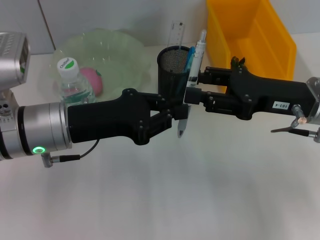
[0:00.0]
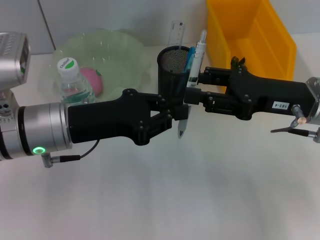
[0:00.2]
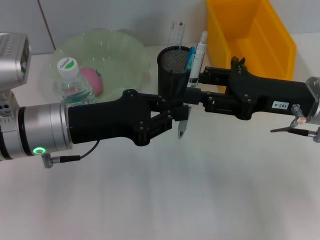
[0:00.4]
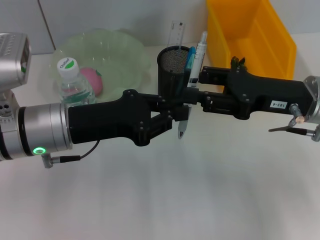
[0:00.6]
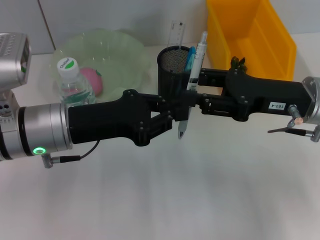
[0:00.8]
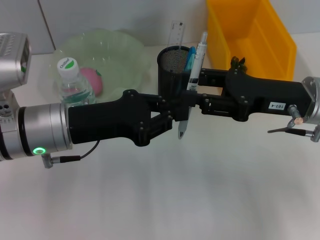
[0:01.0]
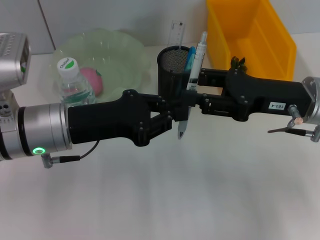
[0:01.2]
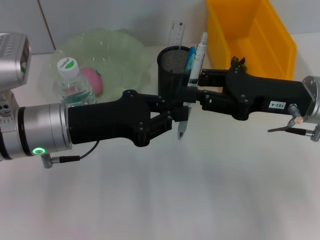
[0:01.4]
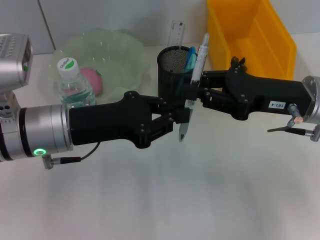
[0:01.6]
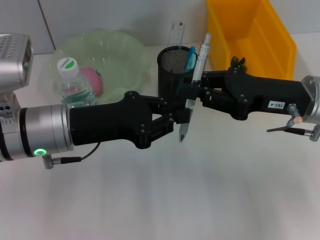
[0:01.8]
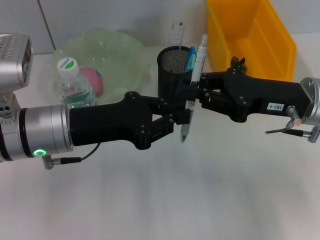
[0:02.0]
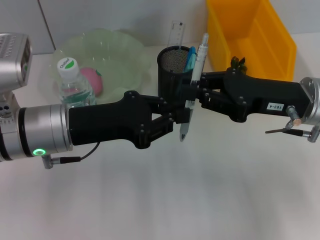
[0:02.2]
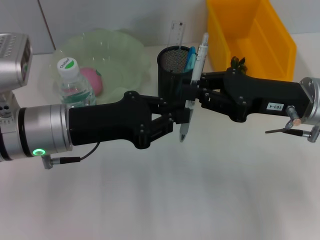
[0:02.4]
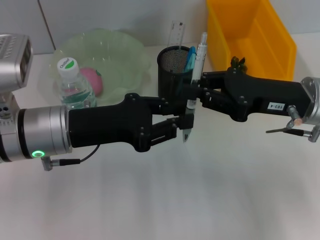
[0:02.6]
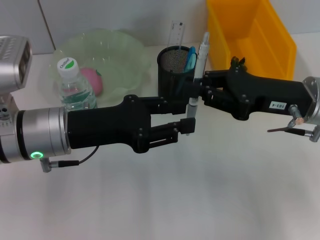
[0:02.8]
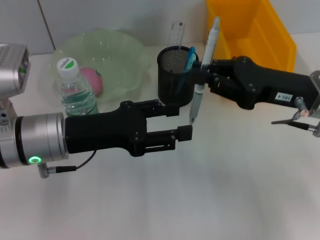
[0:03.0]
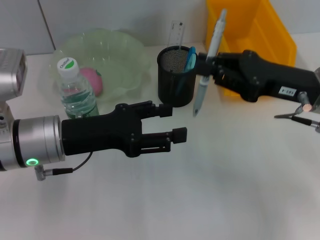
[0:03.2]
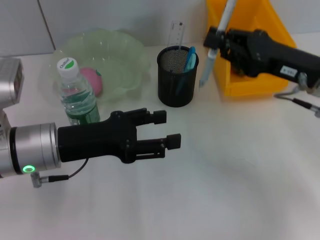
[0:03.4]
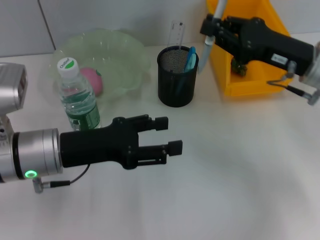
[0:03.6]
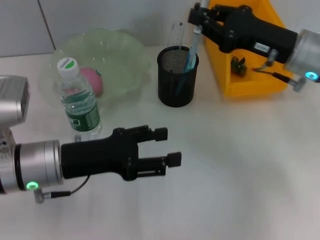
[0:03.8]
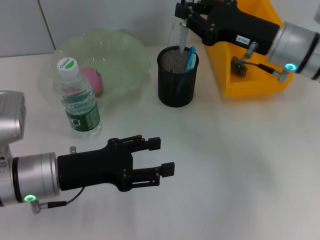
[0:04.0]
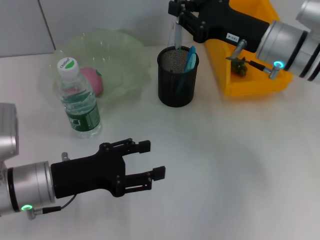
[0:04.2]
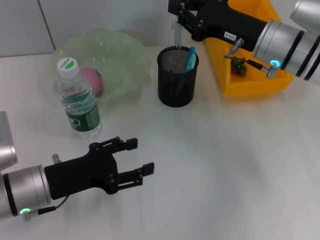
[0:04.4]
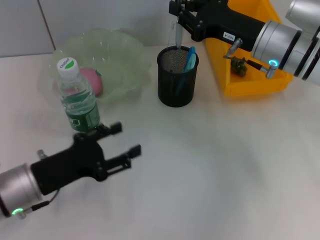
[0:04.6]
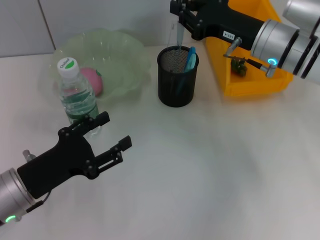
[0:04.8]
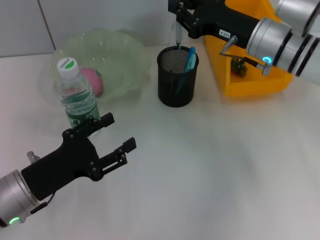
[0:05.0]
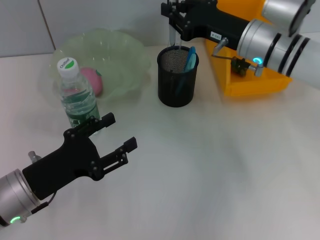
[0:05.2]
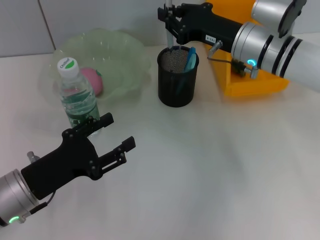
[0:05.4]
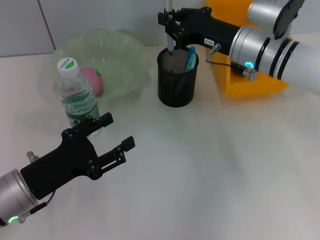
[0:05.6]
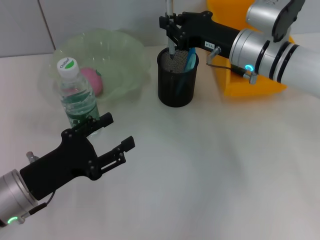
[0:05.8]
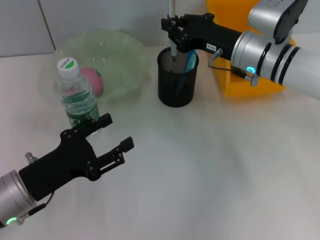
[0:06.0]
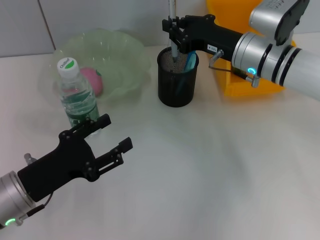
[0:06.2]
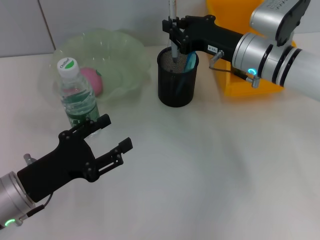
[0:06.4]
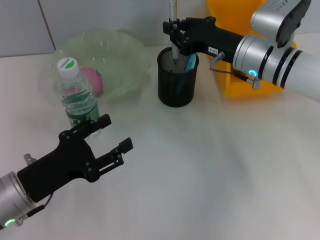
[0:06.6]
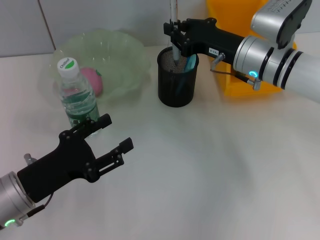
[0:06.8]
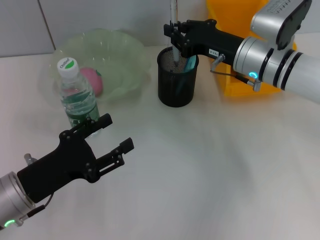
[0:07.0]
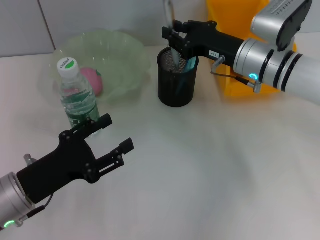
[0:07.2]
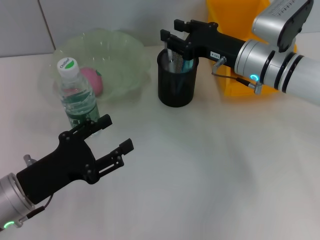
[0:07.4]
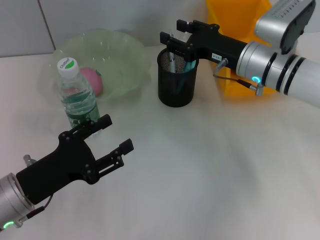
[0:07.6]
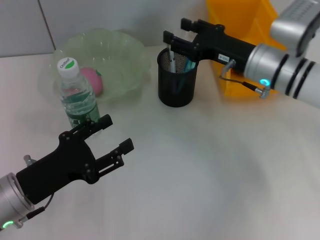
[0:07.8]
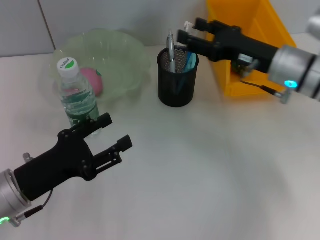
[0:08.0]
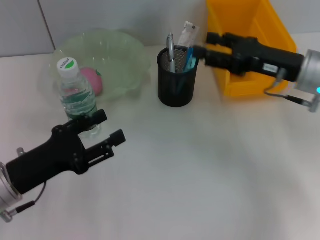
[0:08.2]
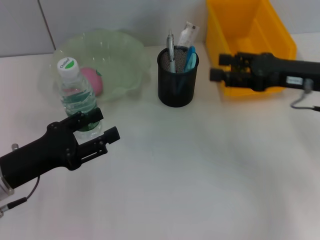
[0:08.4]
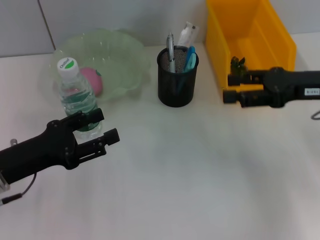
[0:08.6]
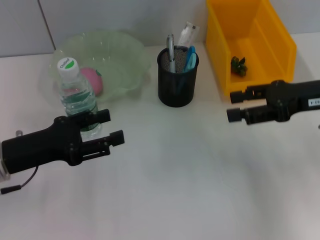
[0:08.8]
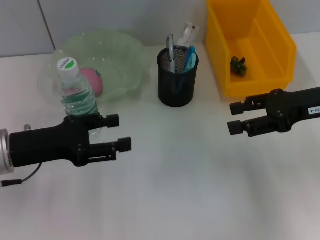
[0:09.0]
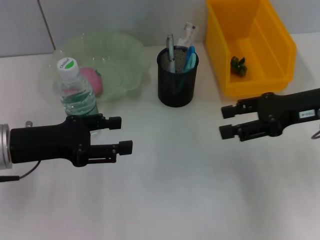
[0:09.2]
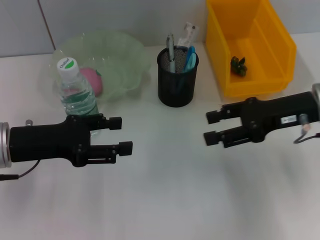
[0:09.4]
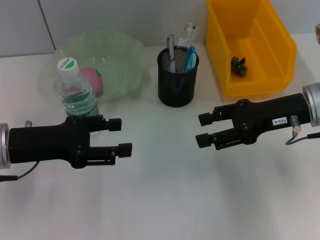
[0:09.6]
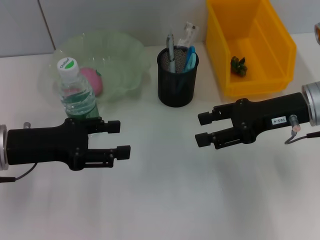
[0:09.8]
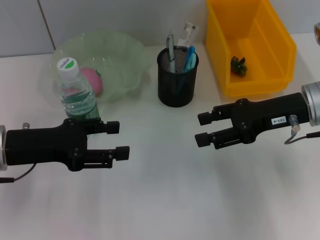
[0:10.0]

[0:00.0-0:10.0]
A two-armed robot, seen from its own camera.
Step, 0:00.0 to 0:02.6: Pass the gray spring-action pen from the left hand to the right hand.
Step, 0:02.8 to 0:07.4: Place the gray spring-action pen into the pen holder with the right hand.
0:00.0 to 0:01.4: Both grippers stay put.
0:01.4 to 0:02.8: The right gripper closes its fingers.
0:02.8 to 0:04.2: The right gripper shifts about 10 cm forward, while the left gripper travels downward by some 5 cm, and opens its fingers.
0:05.8 to 0:07.2: The grippers move only a little.
0:07.2 to 0:08.6: The left gripper moves about 5 cm. Meanwhile the right gripper travels to the right and backward by some 15 cm, and opens up.
0:08.6 to 0:10.0: The left gripper changes place by approximately 5 cm.

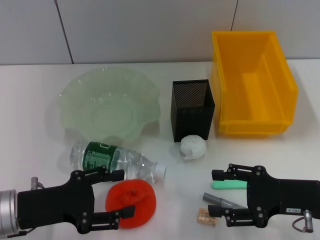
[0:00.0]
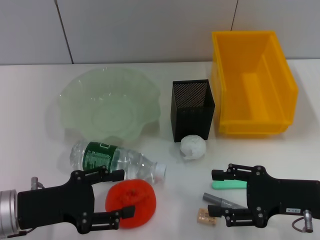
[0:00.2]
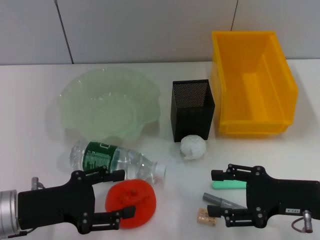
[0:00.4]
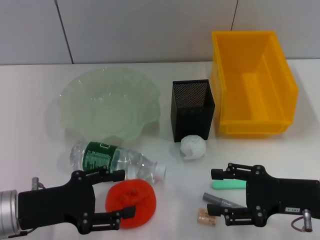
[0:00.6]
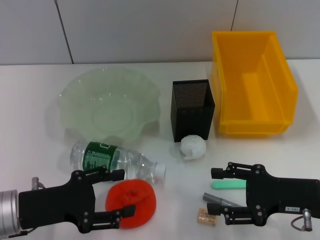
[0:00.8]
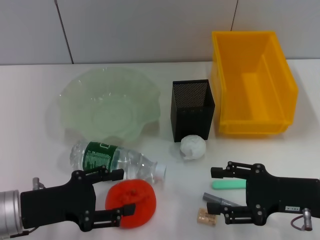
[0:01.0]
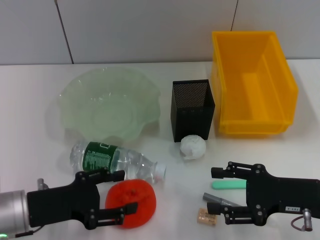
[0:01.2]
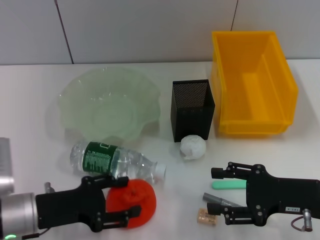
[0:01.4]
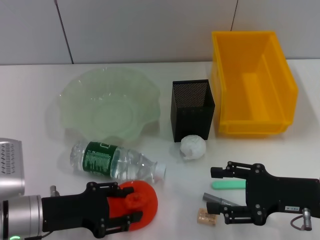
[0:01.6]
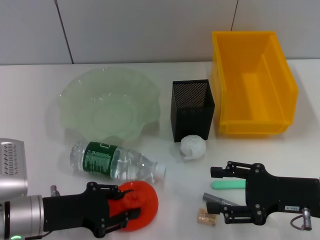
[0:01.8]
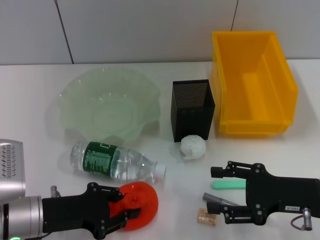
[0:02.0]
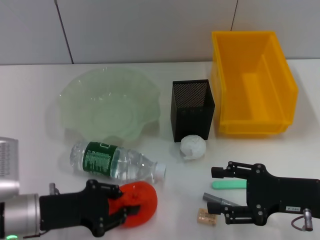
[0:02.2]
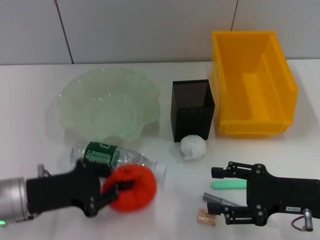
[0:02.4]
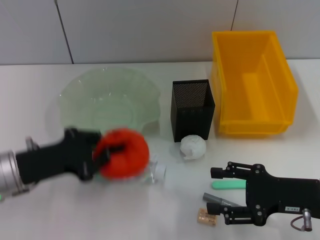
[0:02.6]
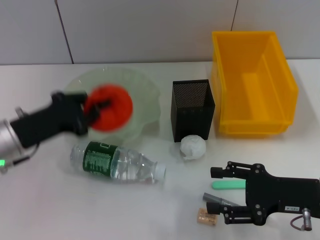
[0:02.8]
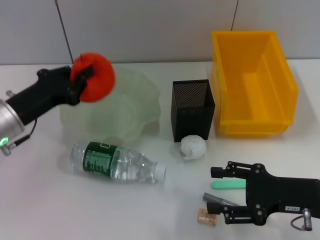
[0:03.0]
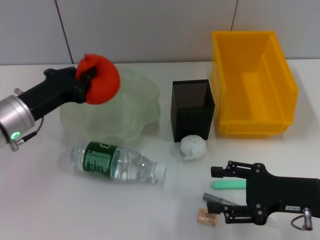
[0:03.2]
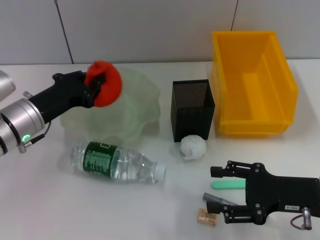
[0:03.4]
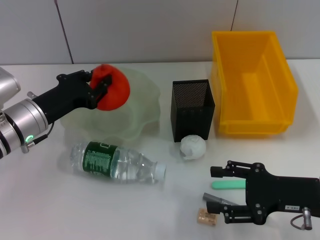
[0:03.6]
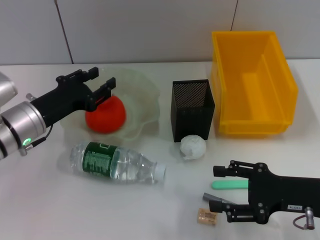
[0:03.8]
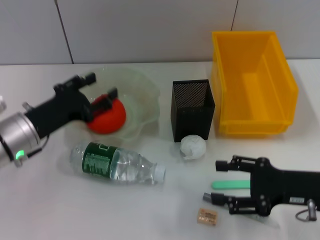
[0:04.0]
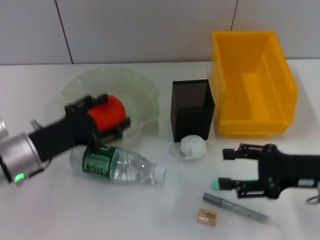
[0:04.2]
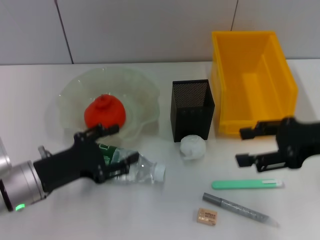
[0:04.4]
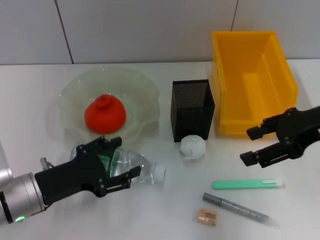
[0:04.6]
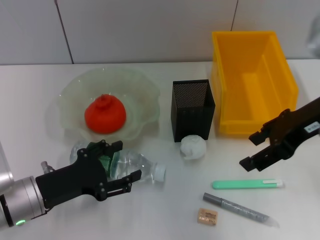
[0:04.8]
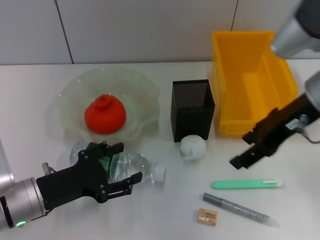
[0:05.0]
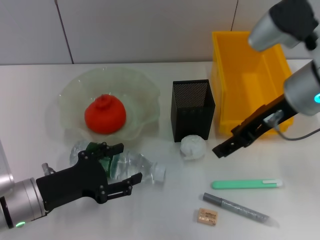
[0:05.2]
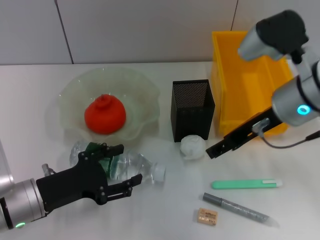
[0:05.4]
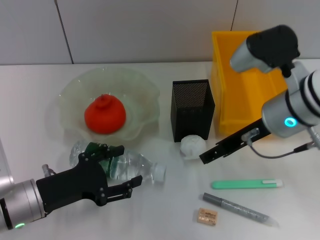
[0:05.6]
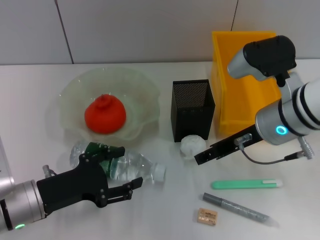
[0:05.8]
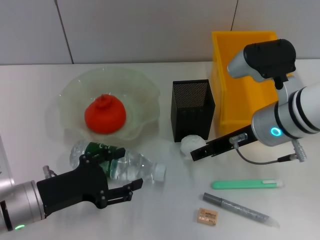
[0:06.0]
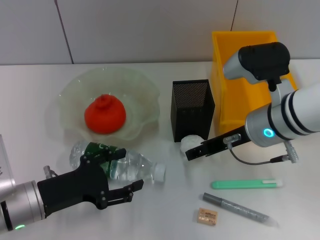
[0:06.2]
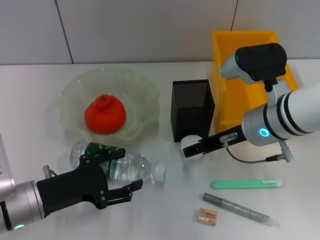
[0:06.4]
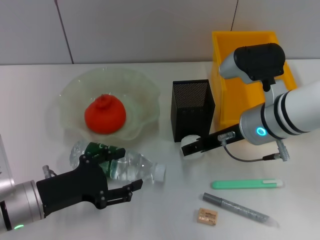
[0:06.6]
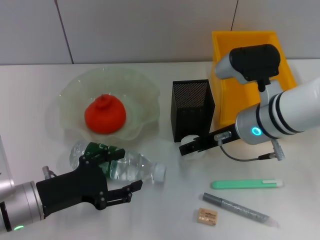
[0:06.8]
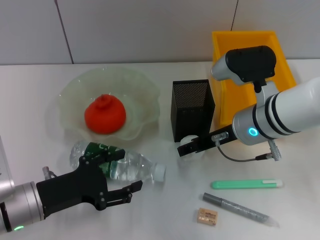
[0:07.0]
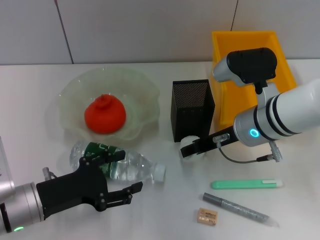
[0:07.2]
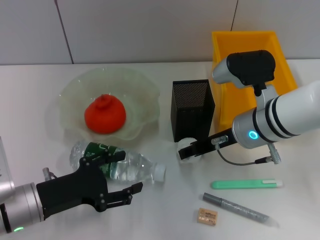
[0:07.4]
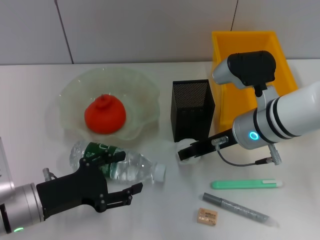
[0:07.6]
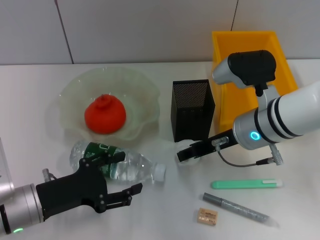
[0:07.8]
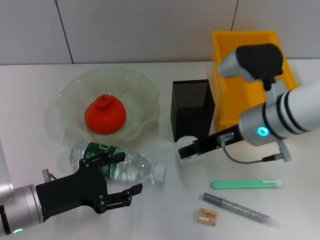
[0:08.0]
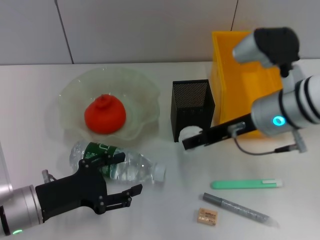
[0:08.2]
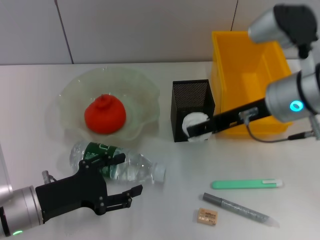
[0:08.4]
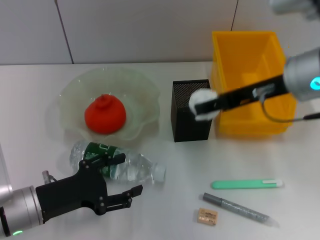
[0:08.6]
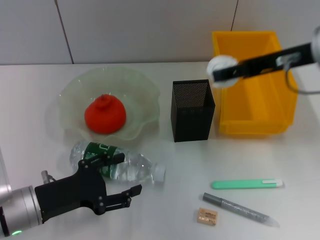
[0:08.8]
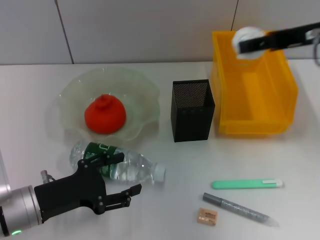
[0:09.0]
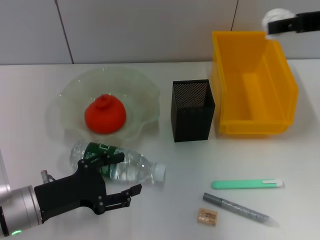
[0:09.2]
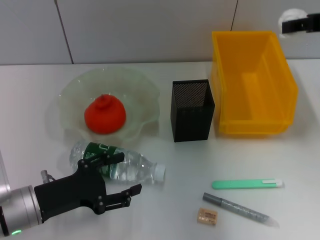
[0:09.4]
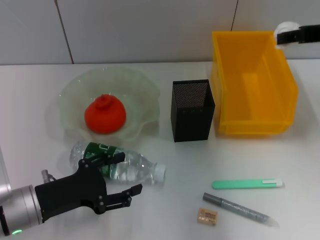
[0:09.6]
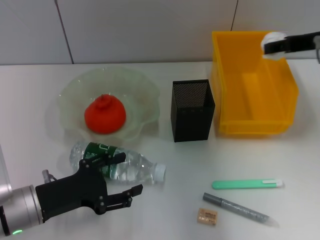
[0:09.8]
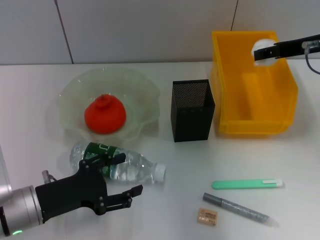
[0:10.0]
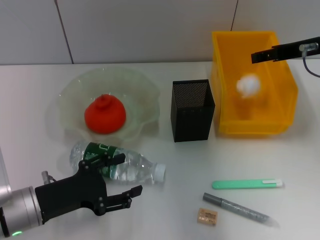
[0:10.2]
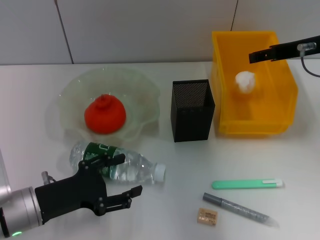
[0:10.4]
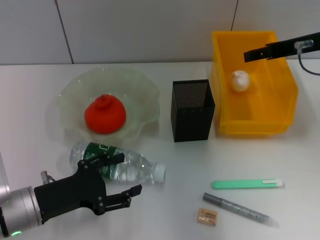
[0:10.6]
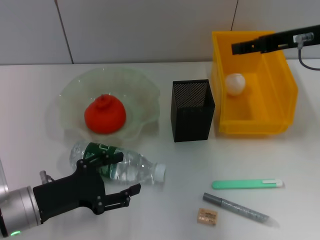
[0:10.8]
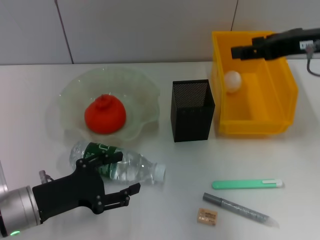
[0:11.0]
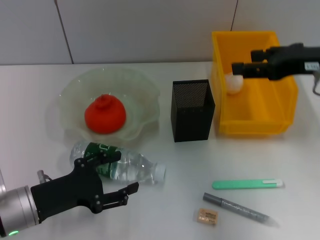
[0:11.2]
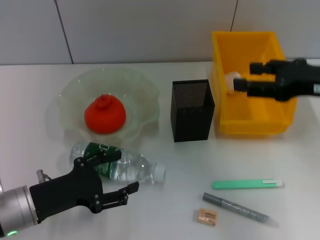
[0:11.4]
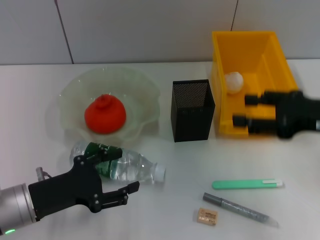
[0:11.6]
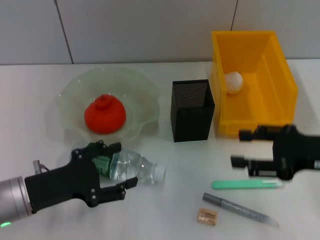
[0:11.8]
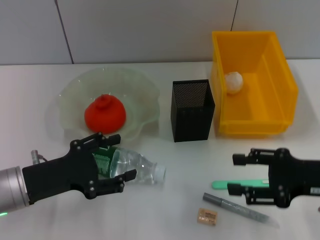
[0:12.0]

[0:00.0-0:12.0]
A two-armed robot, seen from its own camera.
Step, 0:00.0 to 0:02.2: Grab the orange with the left hand.
Step, 0:02.4 to 0:03.8: Place the orange into the fruit bowl with the left hand.
Step, 0:04.0 to 0:07.4: Grab the paper ball with the right hand.
Step, 0:07.8 to 0:10.4: Place the paper ball into the trash can with the right hand.
0:00.0 to 0:01.6: The grippers make only small movements.
0:01.6 to 0:03.0: The left gripper moves forward and upward, about 10 cm, and closes.
0:03.0 to 0:04.4: The left gripper heads backward, covering approximately 5 cm, and opens up, while the right gripper travels upward by approximately 10 cm.
0:04.4 to 0:06.0: The right gripper moves to the left, some 15 cm.
0:06.0 to 0:07.6: The grippers stay close to where they were, moving slightly.
0:07.6 to 0:09.0: The right gripper moves upward and to the right, approximately 20 cm.
0:09.0 to 0:10.4: The right gripper shifts roughly 10 cm downward and forward.
0:10.4 to 0:12.0: The right gripper moves backward and downward, approximately 20 cm.
